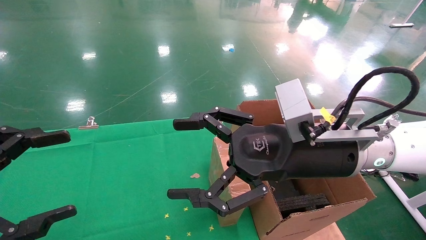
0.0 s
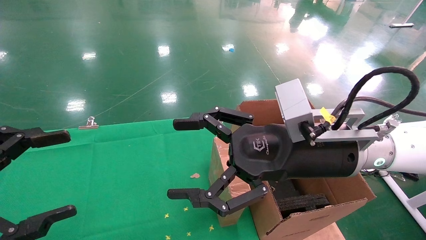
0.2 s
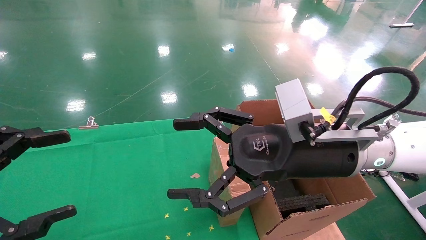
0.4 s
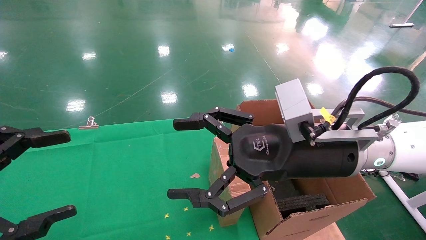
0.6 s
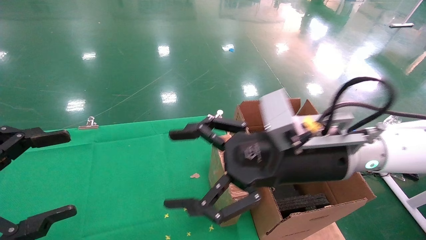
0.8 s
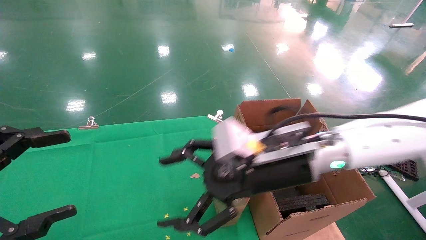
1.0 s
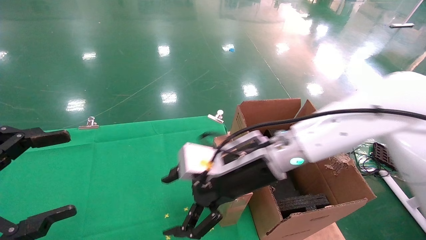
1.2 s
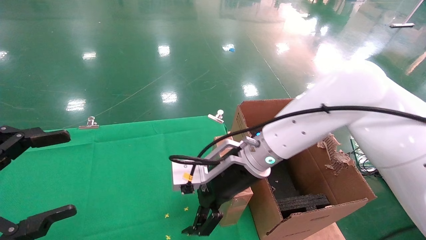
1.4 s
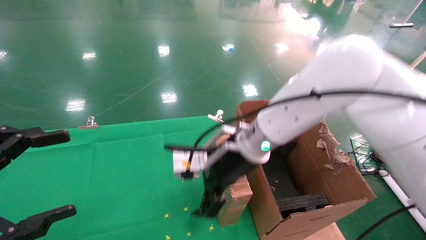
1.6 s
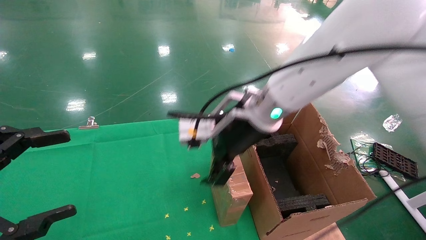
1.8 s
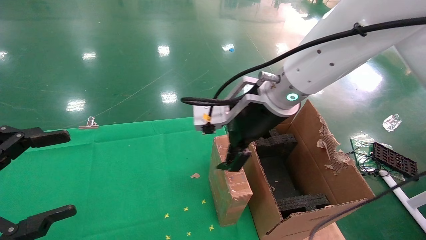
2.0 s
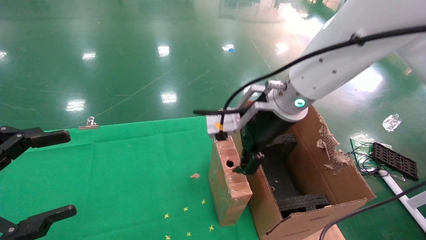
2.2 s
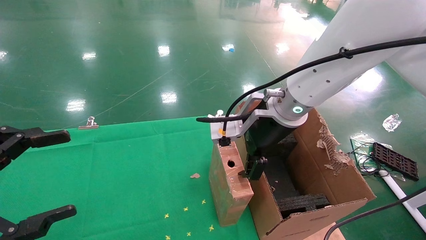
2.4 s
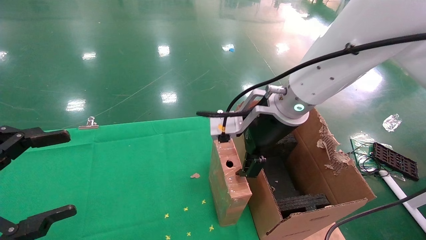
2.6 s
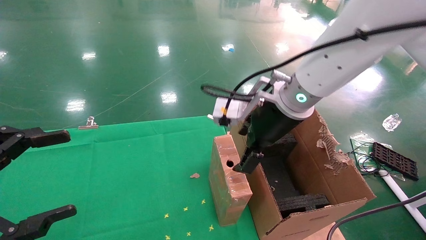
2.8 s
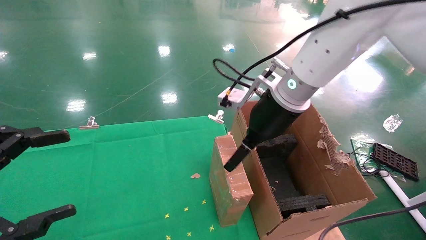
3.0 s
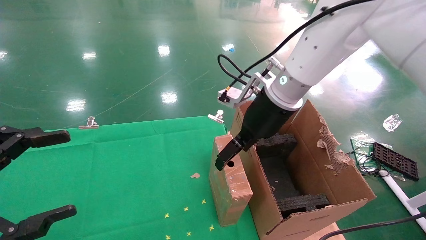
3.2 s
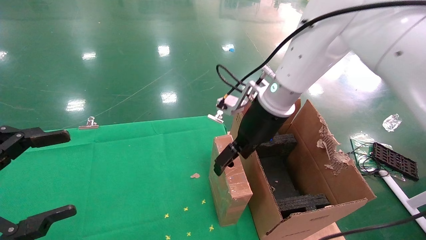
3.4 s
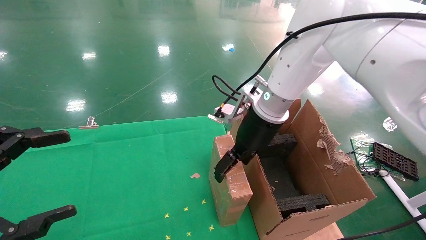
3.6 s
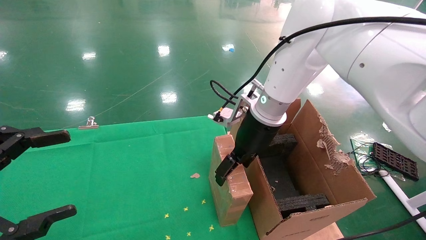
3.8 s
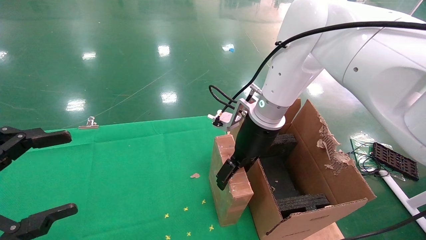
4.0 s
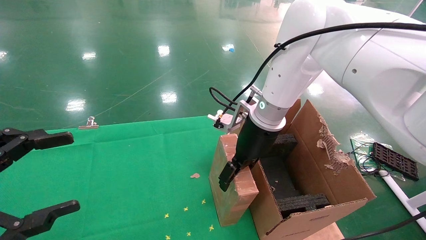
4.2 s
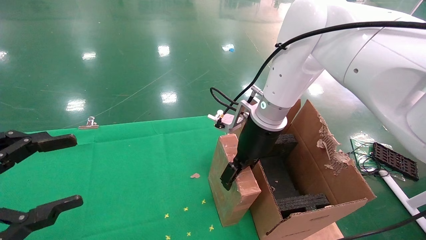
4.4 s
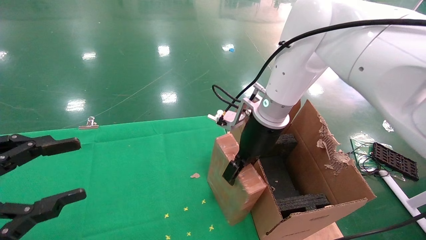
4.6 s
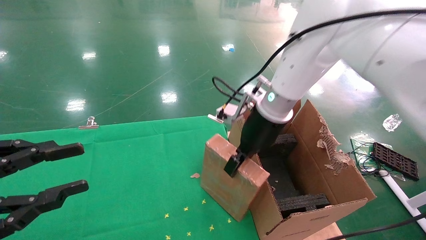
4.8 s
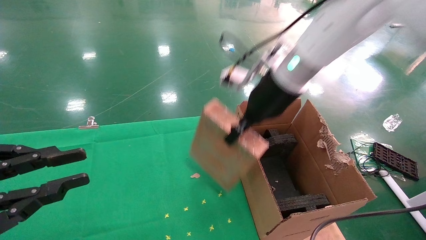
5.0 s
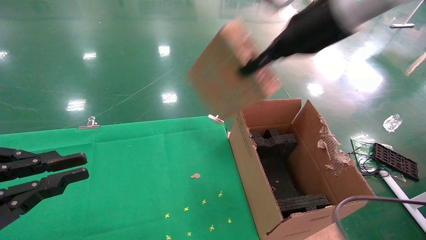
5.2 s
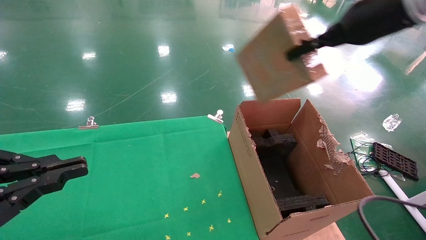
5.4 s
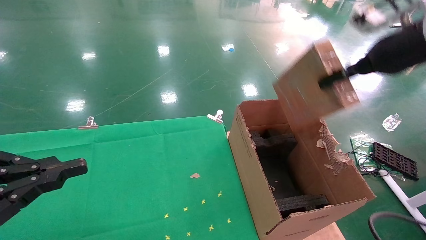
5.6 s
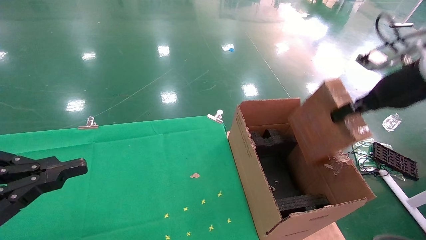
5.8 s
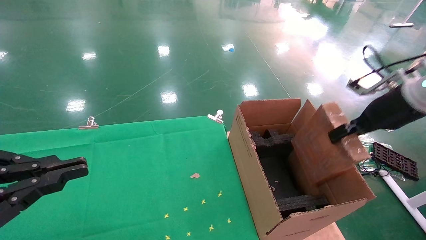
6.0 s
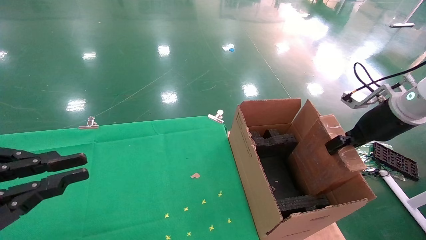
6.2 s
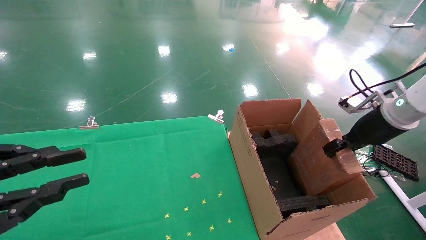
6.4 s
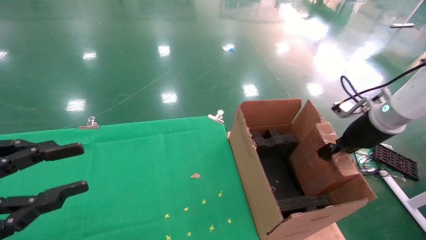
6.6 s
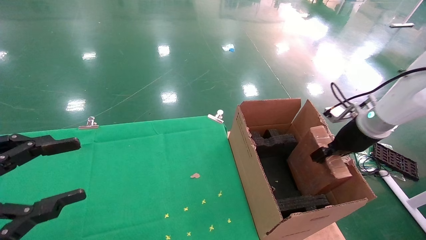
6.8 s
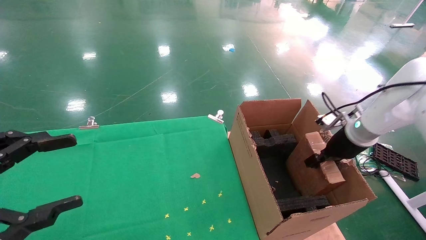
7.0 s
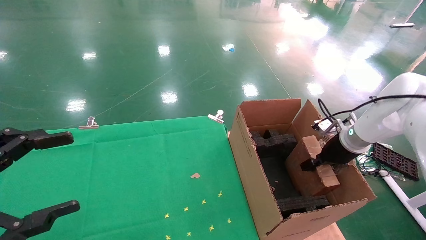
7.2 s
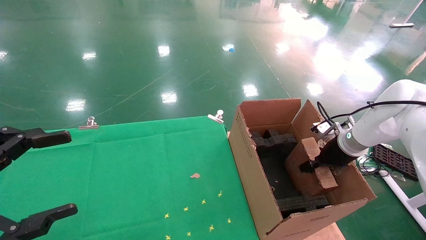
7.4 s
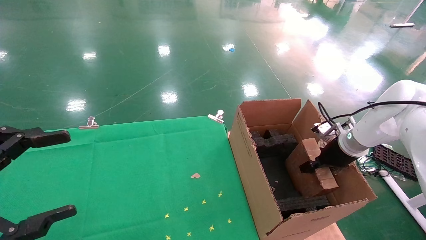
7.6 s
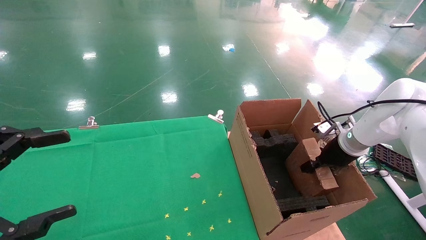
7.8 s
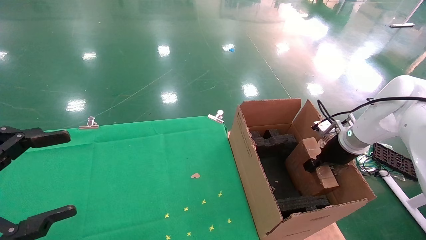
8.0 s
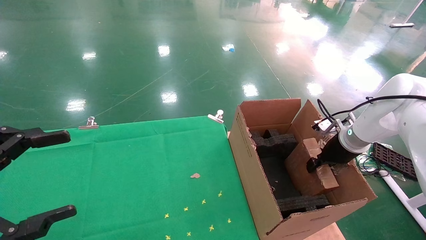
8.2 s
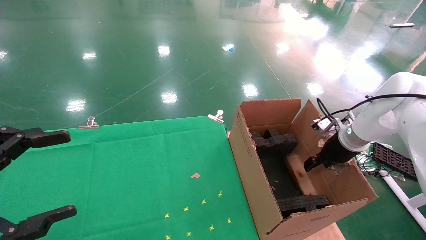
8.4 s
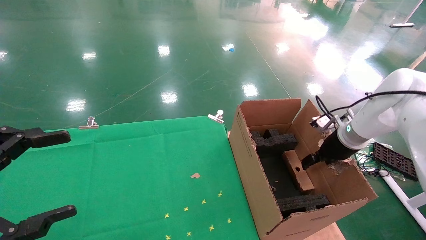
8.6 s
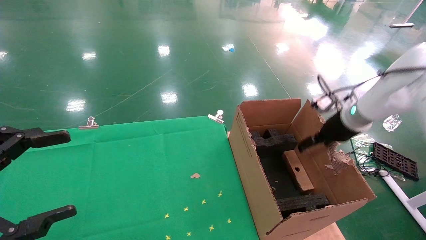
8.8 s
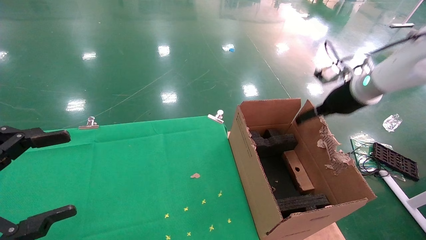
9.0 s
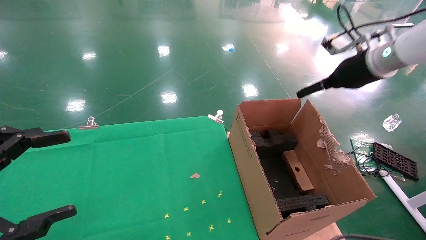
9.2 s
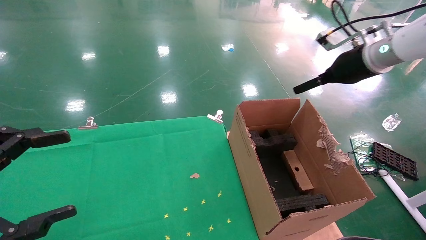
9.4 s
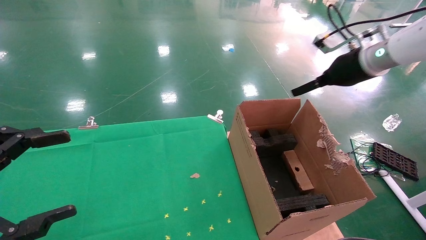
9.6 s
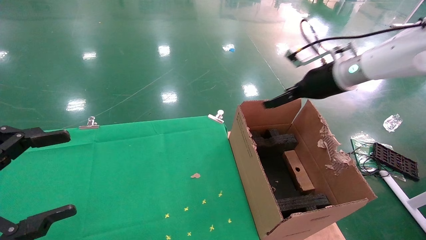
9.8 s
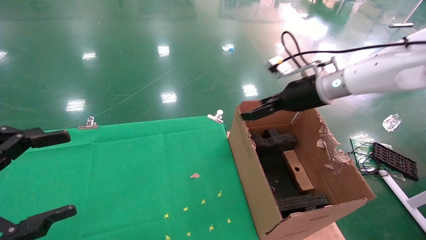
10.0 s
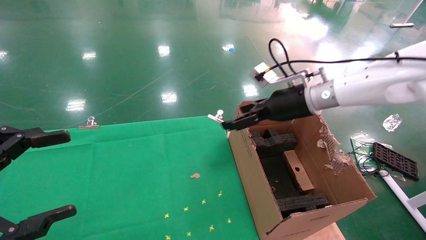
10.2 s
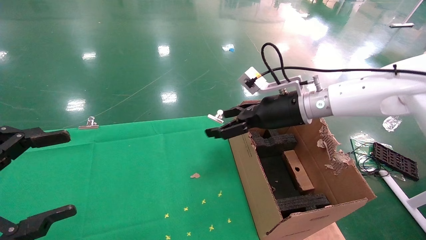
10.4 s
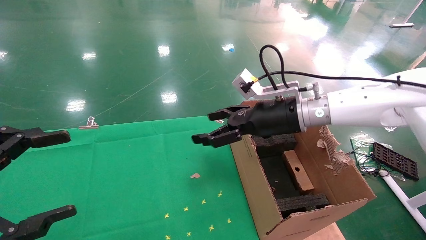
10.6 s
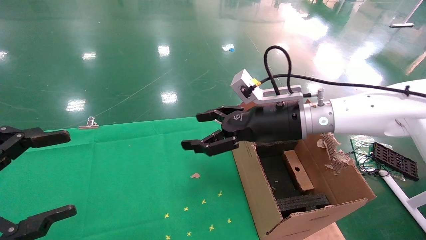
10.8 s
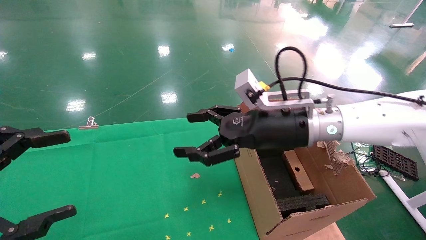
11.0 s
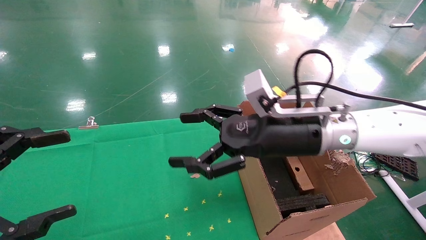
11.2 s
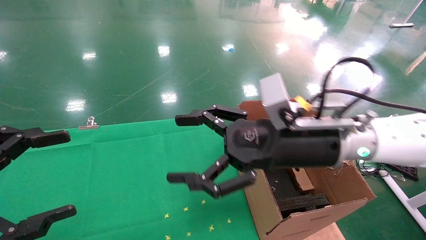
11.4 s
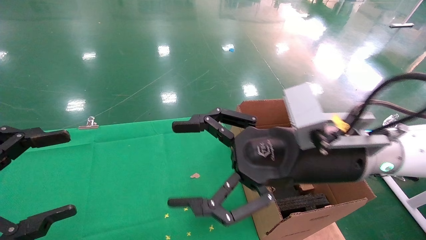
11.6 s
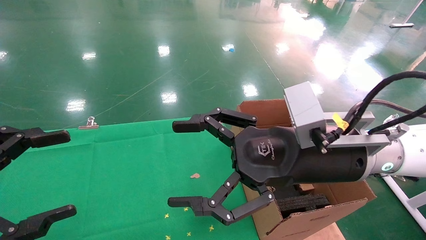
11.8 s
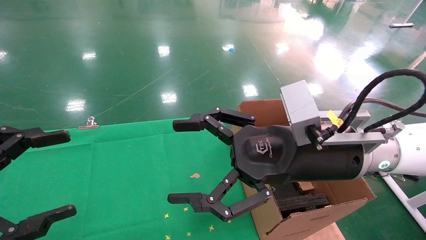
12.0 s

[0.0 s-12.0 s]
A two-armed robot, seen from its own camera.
Task of the whole recording: using a robotic arm to pick up a cardboard box and palace it the carton.
Step, 1.0 to 4.8 s: Pick up the mouse and the power cord paper box.
Step, 5.0 to 8.6 s: Place the mouse and the power cord paper box into the container.
0.0 to 1.6 s: The right gripper heads forward and to the left, covering some 15 cm.
1.6 to 3.0 s: The right gripper travels upward and to the right by some 10 cm.
3.0 to 4.4 s: The right gripper ends up approximately 5 cm from where it was.
4.4 to 6.0 s: The left gripper closes. Meanwhile the right gripper moves to the right, about 25 cm, and closes its fingers.
6.0 to 7.6 s: The right gripper shifts roughly 15 cm downward and forward. Meanwhile the left gripper opens its fingers.
7.6 to 9.0 s: The right gripper shifts approximately 15 cm upward, and opens.
9.0 to 10.4 s: The right gripper shifts roughly 15 cm to the left.
10.4 to 12.0 s: The right gripper travels backward by about 15 cm.

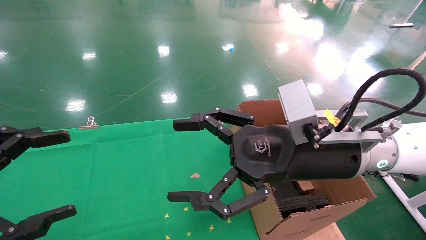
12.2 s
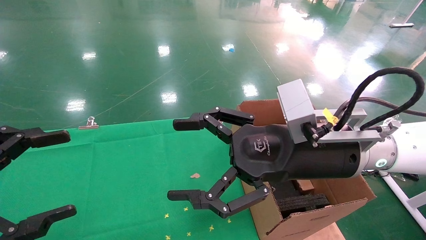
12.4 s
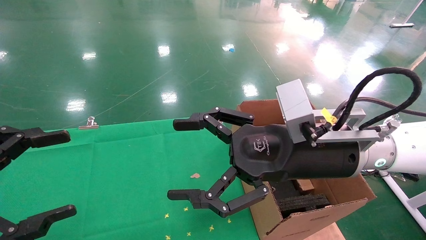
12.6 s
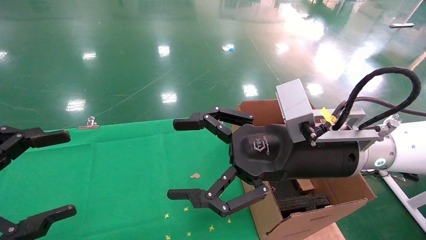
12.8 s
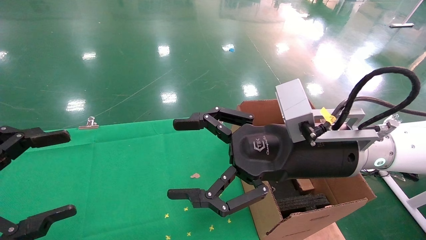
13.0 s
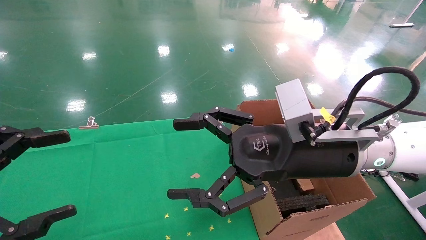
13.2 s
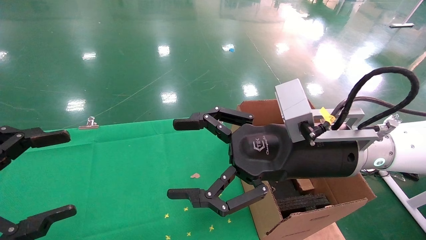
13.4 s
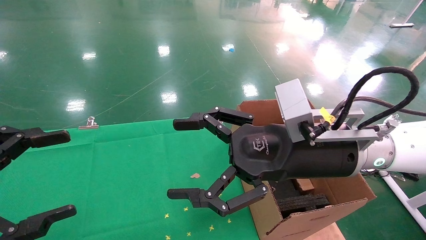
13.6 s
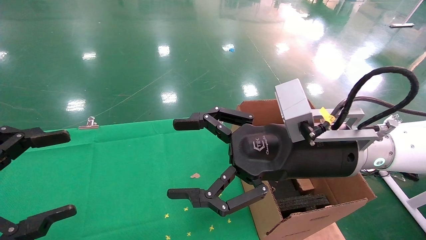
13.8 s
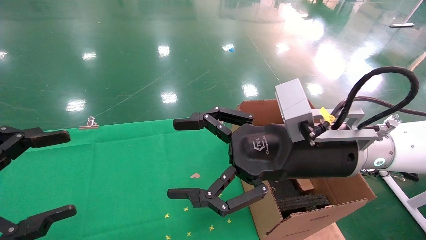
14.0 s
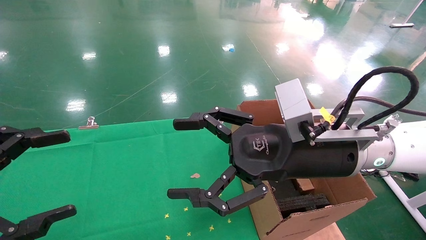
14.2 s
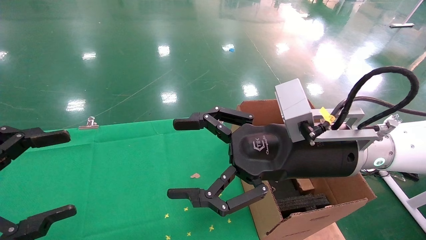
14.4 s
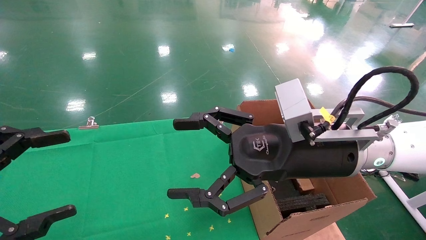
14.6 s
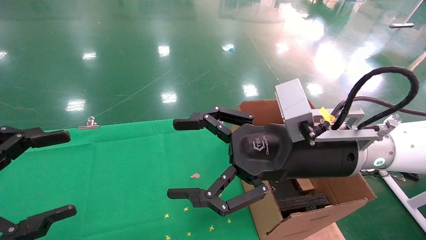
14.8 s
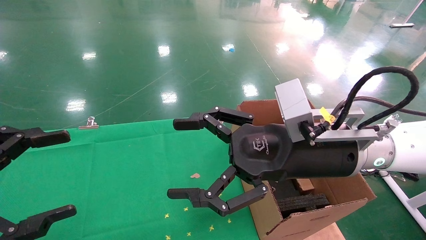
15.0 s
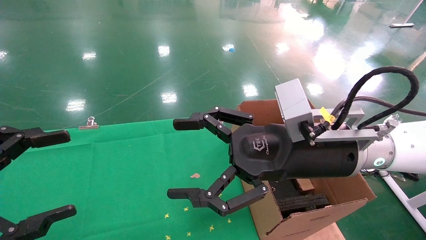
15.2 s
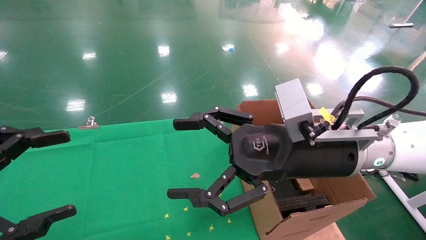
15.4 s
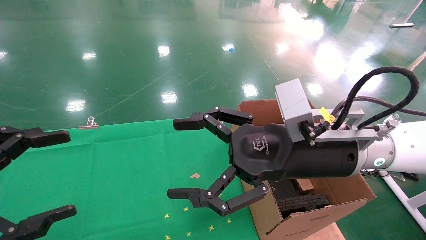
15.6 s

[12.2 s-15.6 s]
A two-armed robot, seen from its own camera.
Task of the whole recording: using a robotic arm to pick up a cardboard box and palace it the carton.
12.2 to 15.6 s: Neither gripper changes place.
